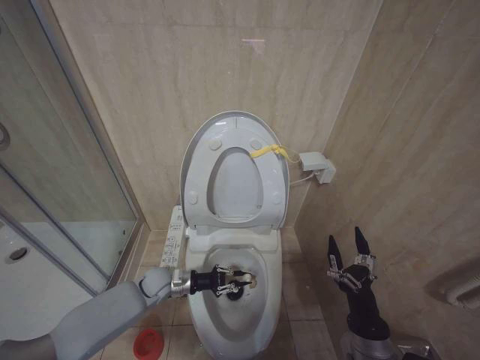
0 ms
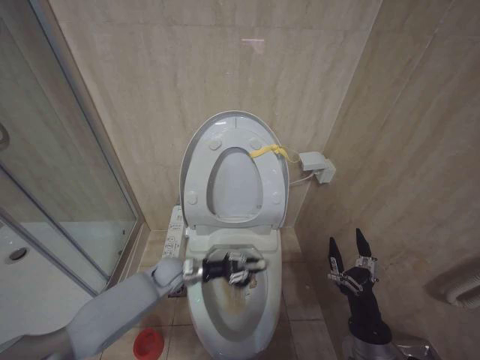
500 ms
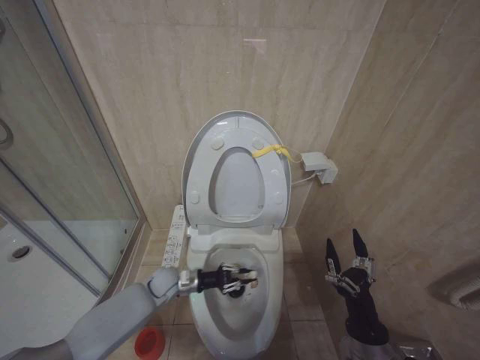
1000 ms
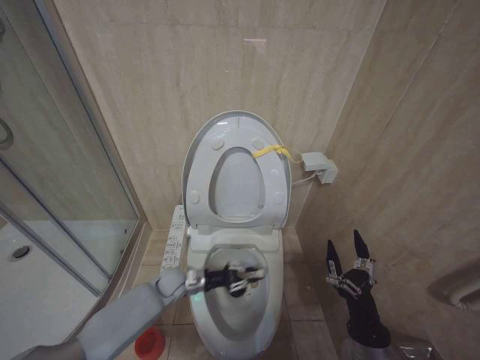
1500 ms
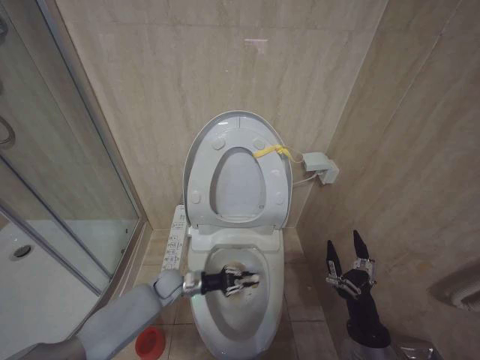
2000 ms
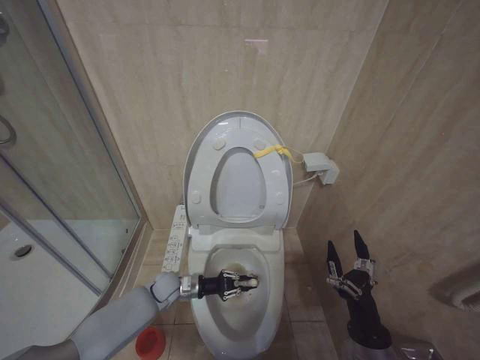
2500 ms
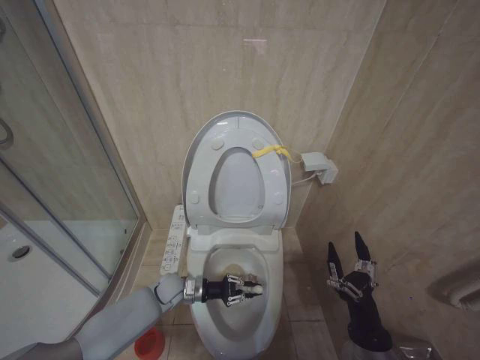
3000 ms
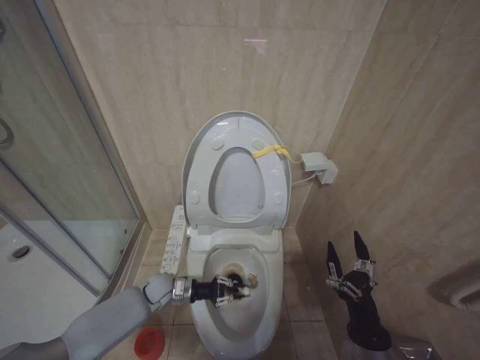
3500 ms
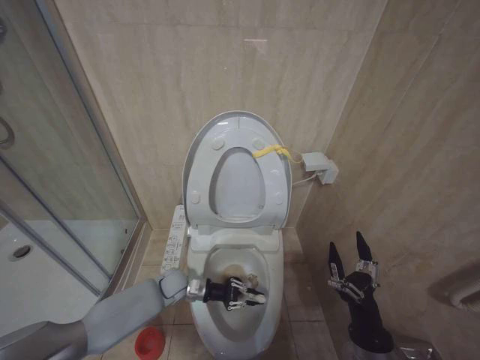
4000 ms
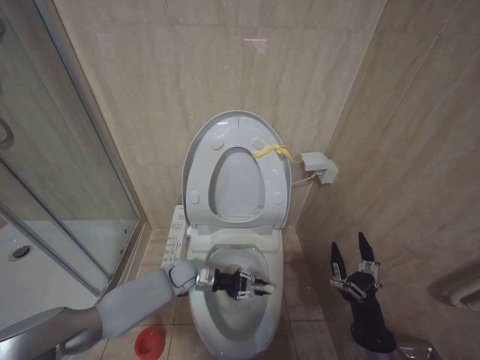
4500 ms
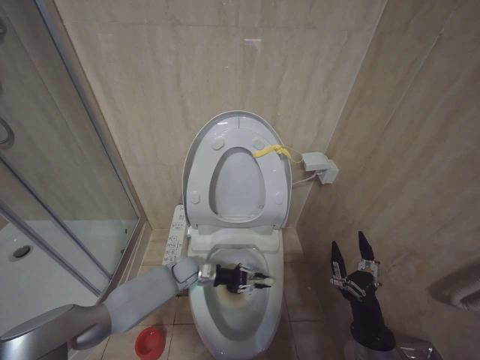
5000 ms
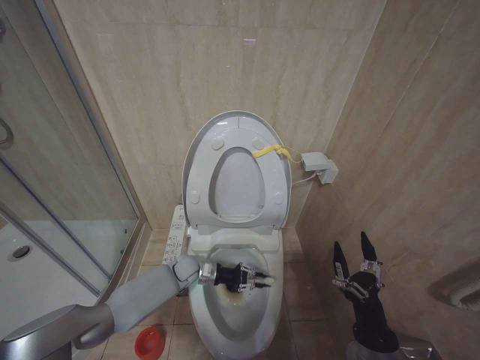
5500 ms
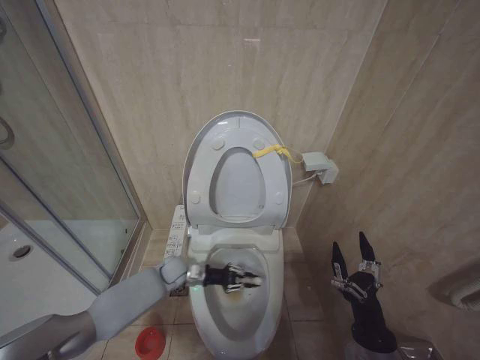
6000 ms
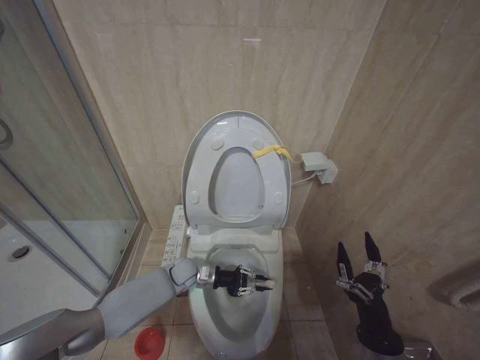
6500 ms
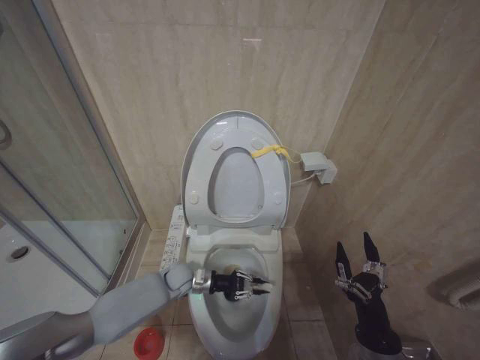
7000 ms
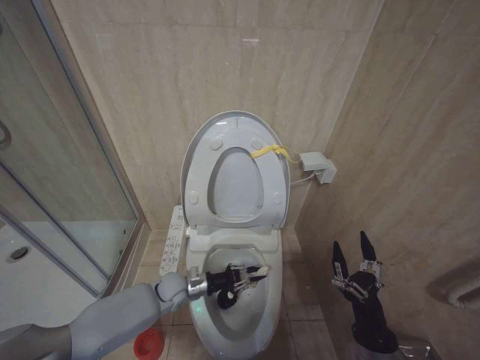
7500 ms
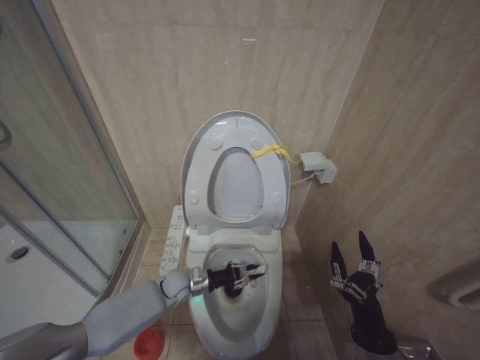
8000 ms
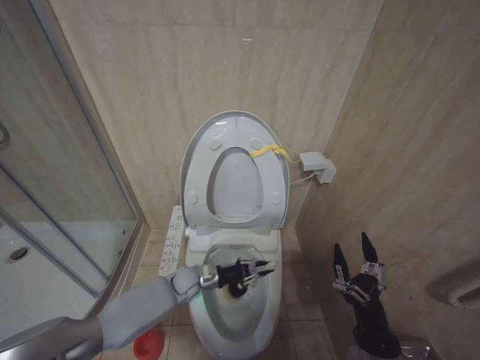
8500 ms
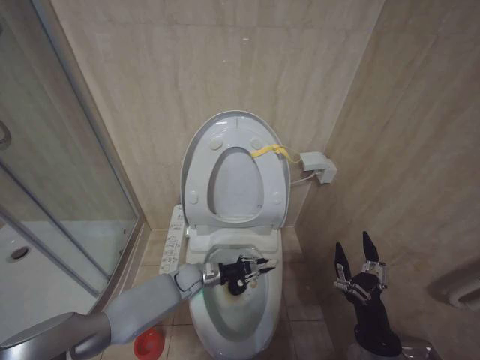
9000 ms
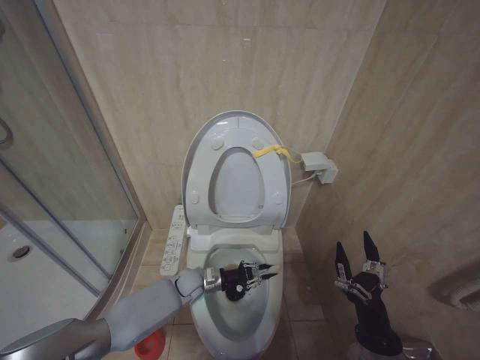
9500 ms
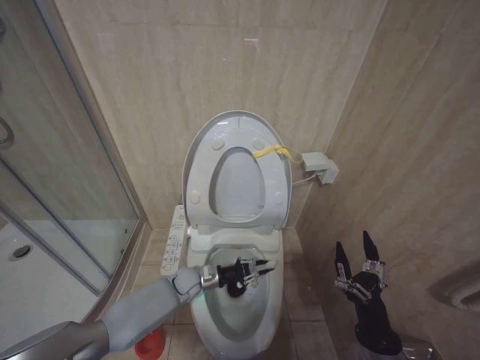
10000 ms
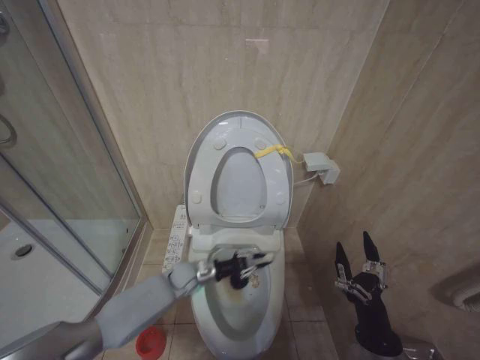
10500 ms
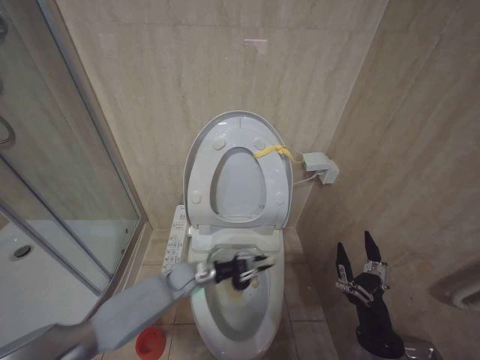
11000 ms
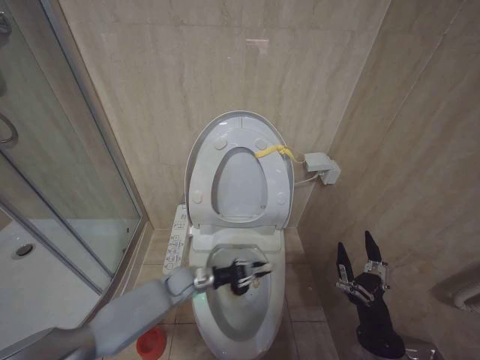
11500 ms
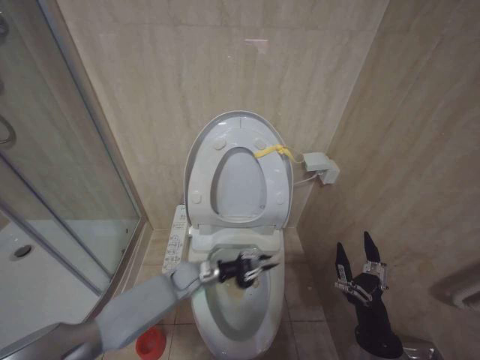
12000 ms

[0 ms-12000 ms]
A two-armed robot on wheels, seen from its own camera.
Task of the whole recording: Open the toilet lid, clean the toilet bowl with a toilet brush, close the toilet lid, and flush.
6000 ms to 8000 ms: The left gripper ends up some 5 cm from where it was.
10000 ms to 12000 ms: The grippers stay close to where they were, moving slightly.

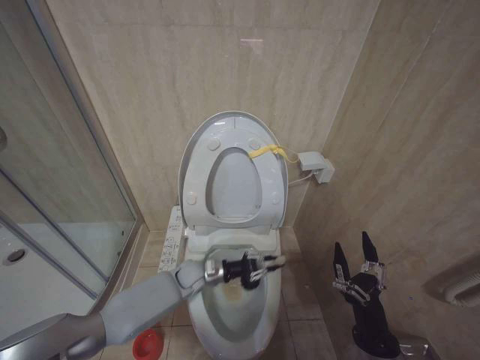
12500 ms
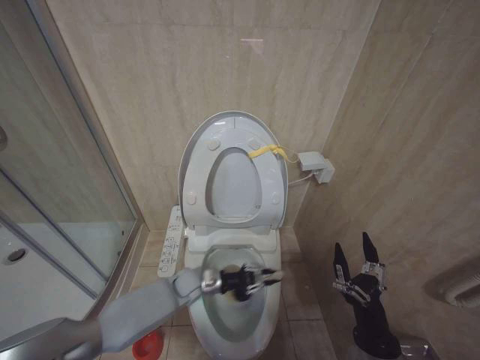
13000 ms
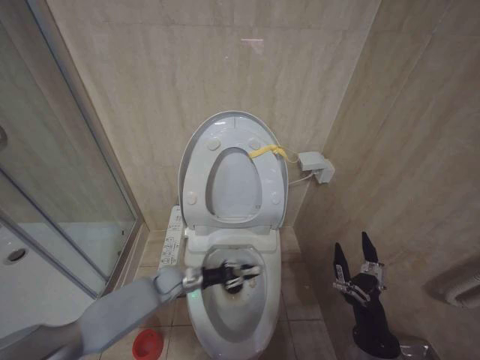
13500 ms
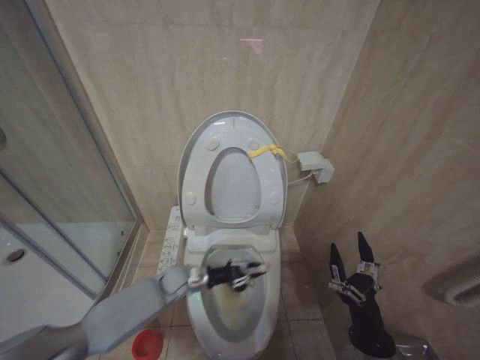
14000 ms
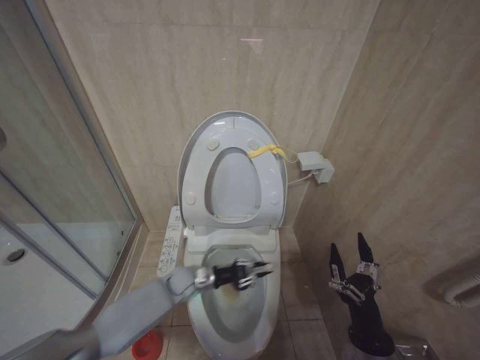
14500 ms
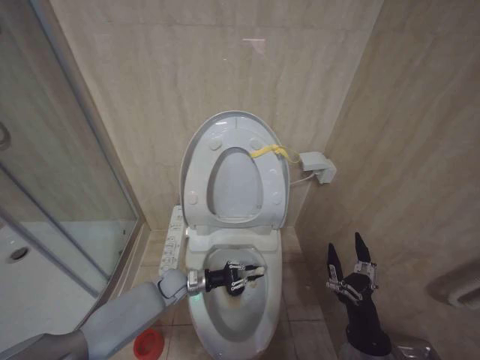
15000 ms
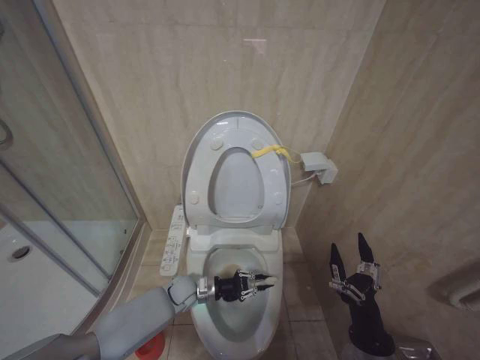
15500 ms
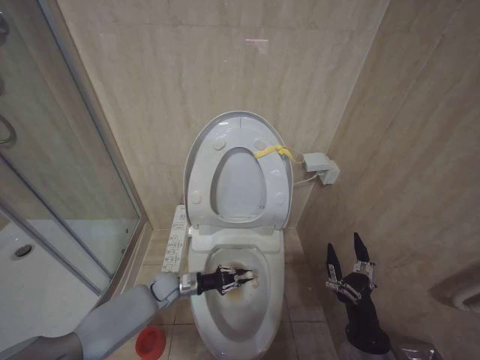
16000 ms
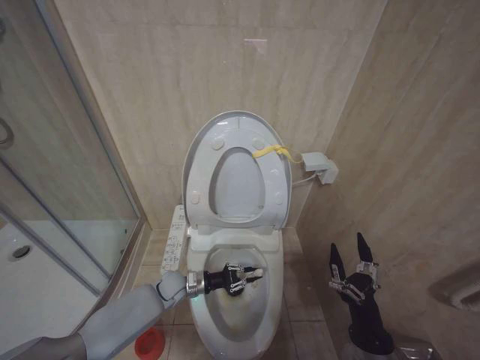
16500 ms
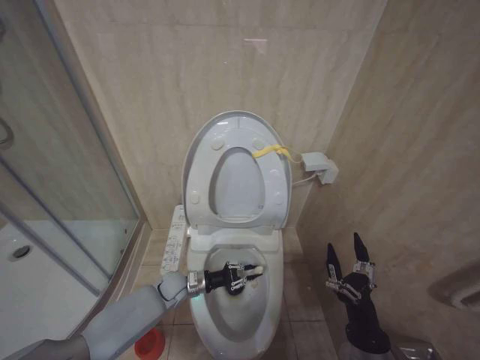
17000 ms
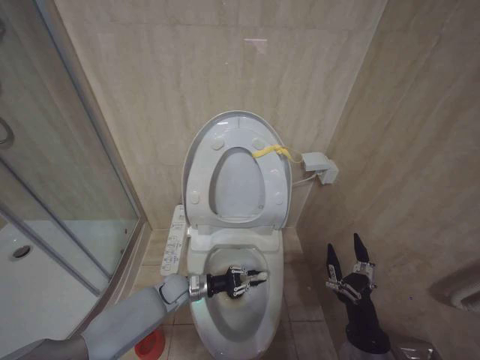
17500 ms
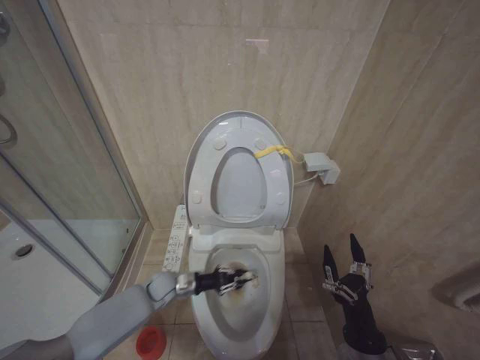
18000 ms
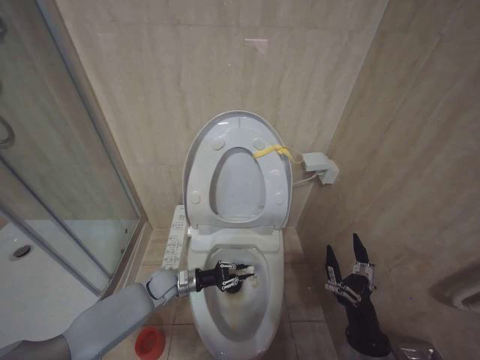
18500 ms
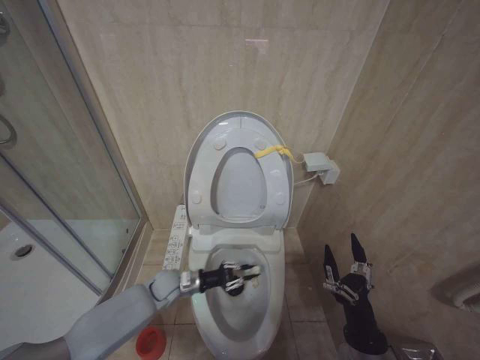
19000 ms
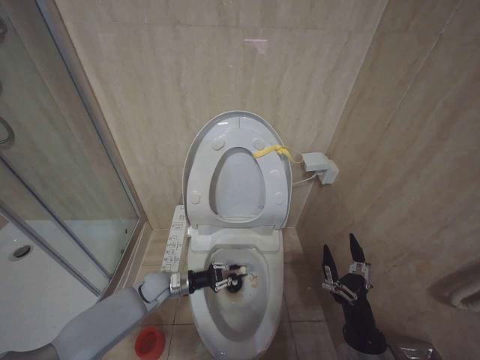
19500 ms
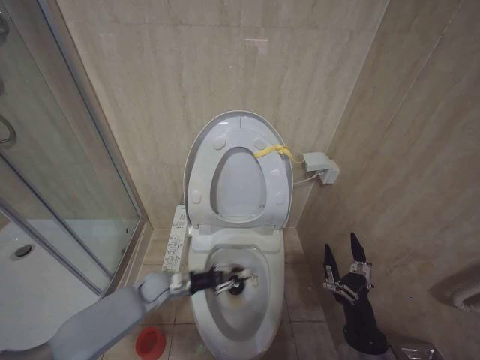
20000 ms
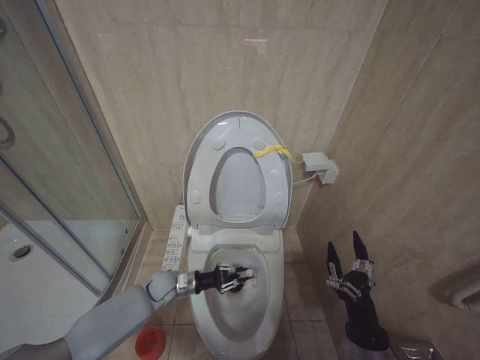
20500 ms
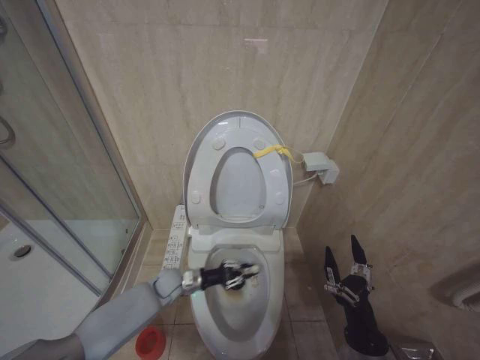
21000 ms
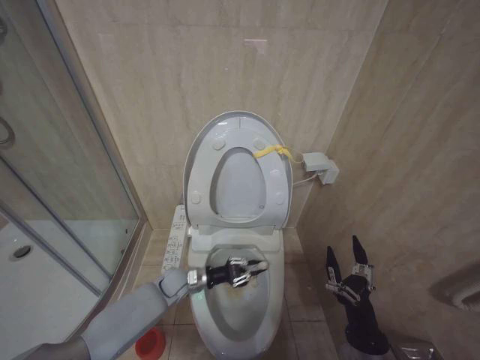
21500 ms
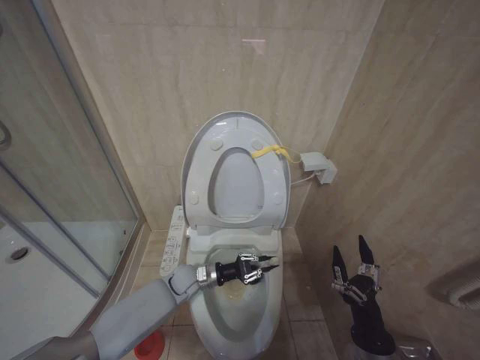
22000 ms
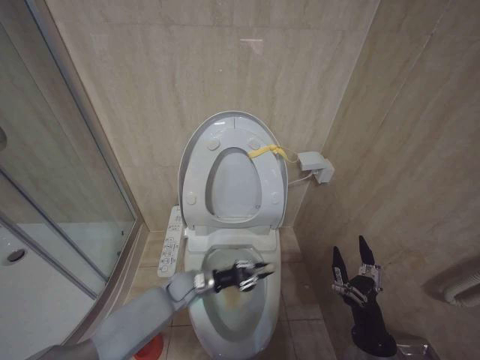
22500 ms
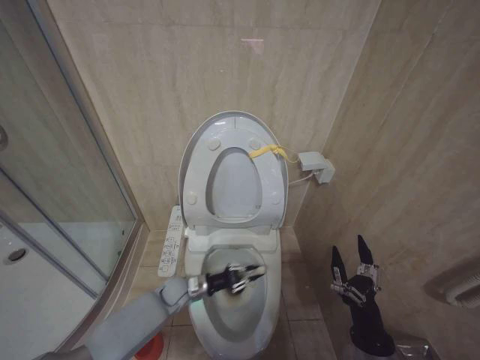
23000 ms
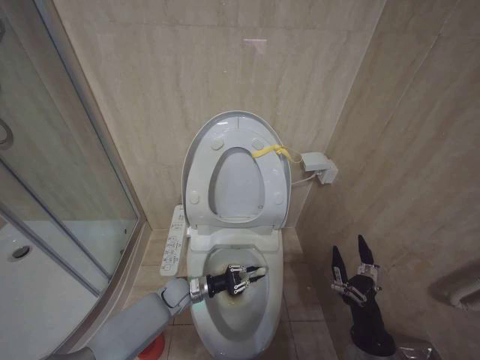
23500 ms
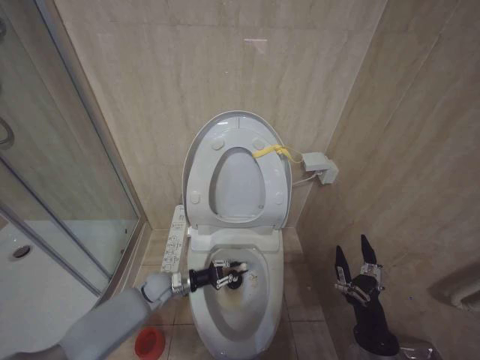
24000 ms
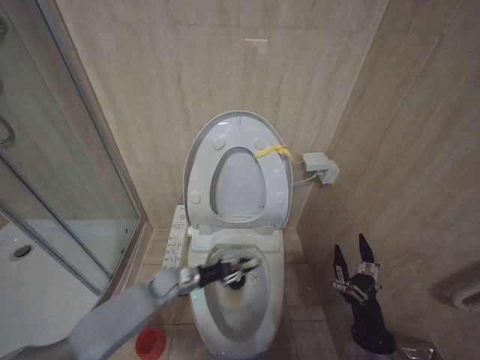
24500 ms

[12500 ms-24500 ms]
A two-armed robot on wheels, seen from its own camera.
Task of the whole recording: Open the toilet lid, clean the toilet bowl with a toilet brush, close the toilet lid, and flush.
20500 ms to 22500 ms: The left gripper moves to the right, about 10 cm.
22500 ms to 24500 ms: The left gripper travels to the left by roughly 10 cm.

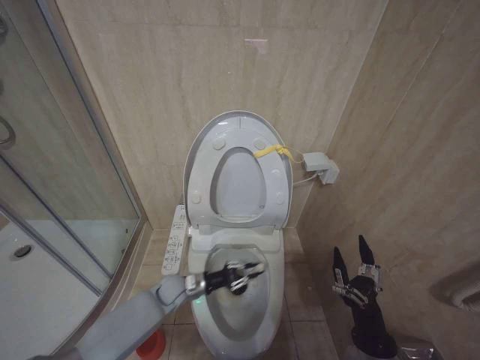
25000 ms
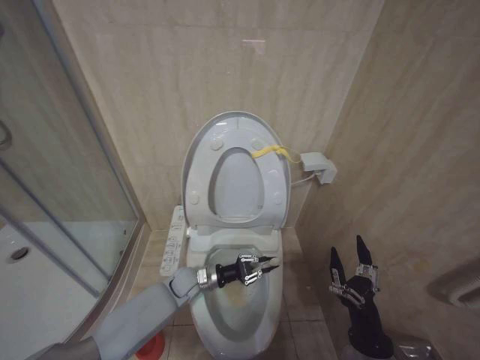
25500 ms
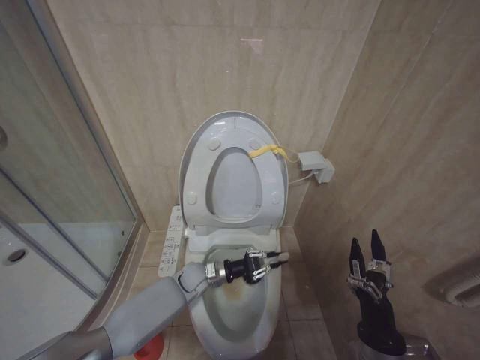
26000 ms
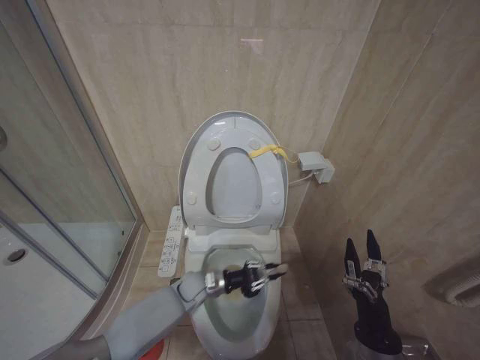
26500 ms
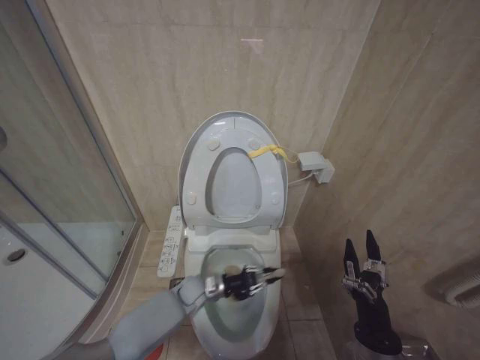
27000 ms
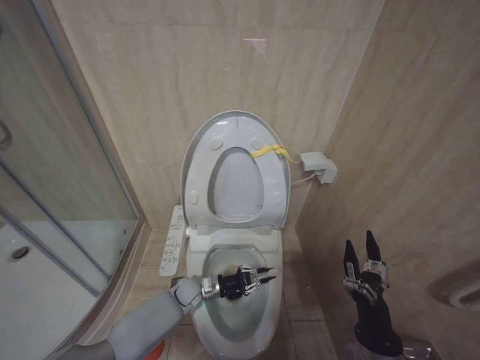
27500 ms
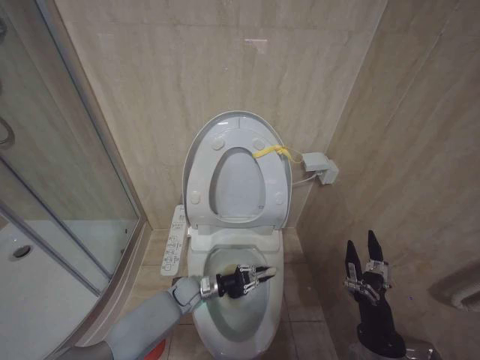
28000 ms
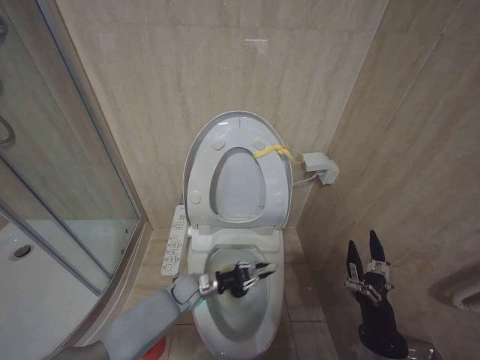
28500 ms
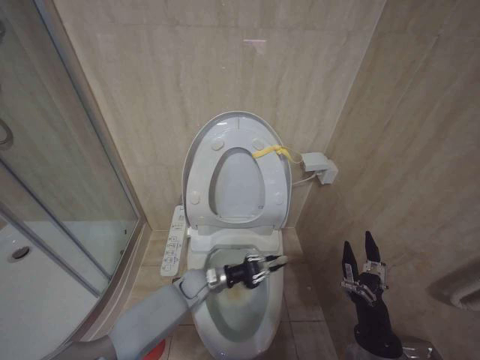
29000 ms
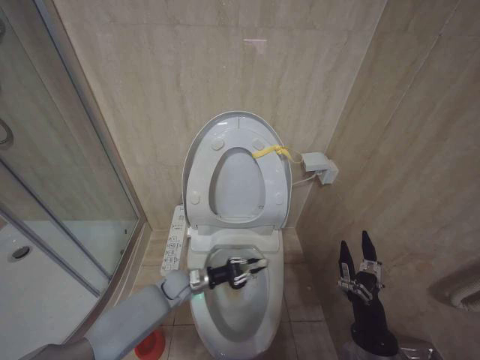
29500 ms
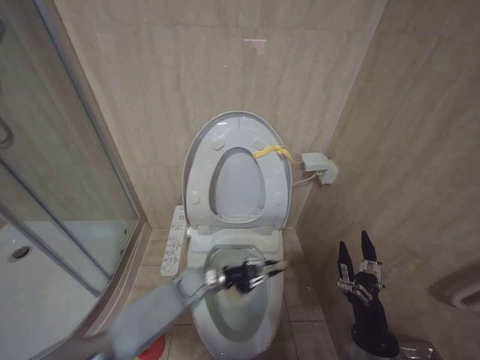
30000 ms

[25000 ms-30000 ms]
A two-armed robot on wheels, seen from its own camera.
Task of the whole recording: Open the toilet lid, clean the toilet bowl with a toilet brush, close the toilet lid, and flush.
25000 ms to 27500 ms: The left gripper is displaced to the right by approximately 5 cm.
